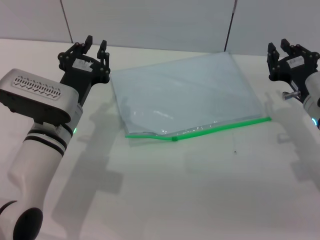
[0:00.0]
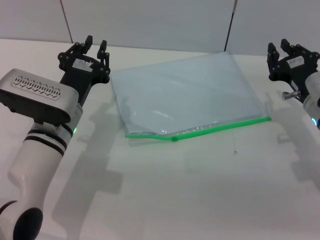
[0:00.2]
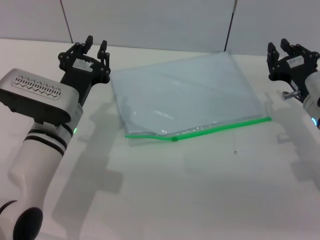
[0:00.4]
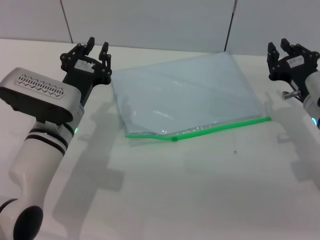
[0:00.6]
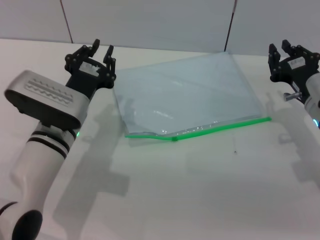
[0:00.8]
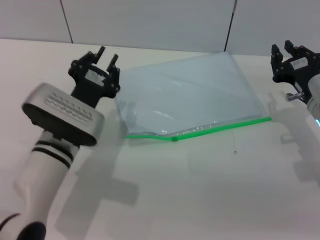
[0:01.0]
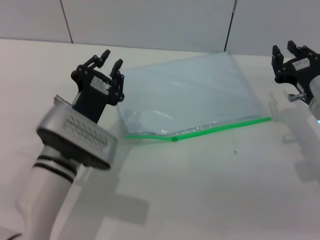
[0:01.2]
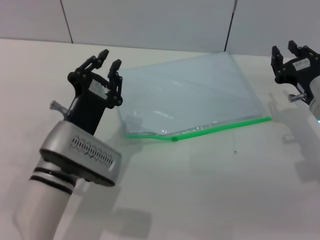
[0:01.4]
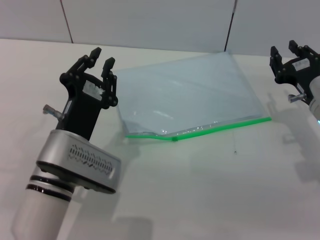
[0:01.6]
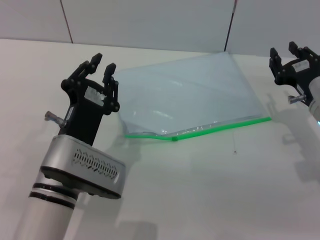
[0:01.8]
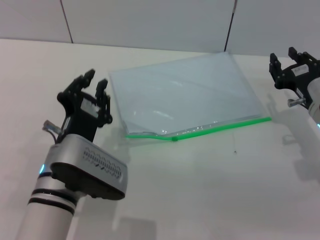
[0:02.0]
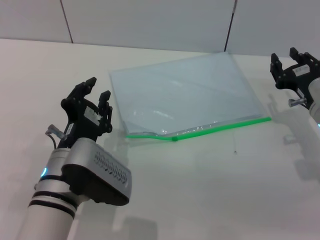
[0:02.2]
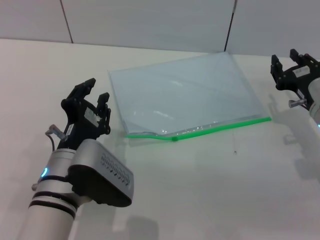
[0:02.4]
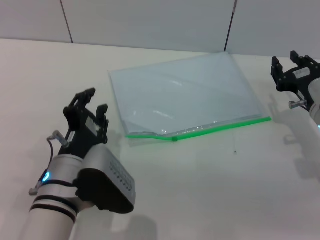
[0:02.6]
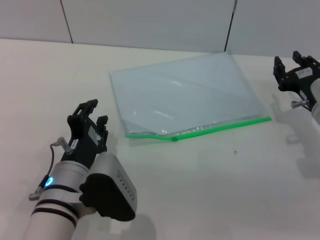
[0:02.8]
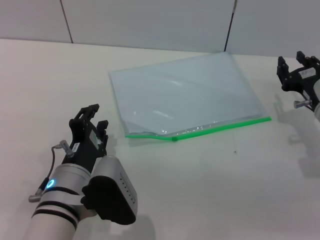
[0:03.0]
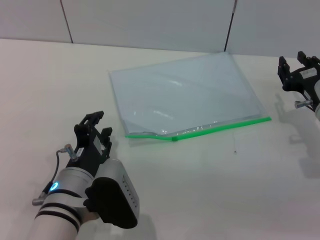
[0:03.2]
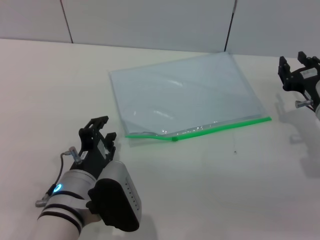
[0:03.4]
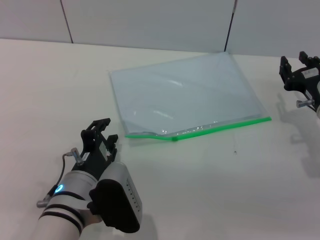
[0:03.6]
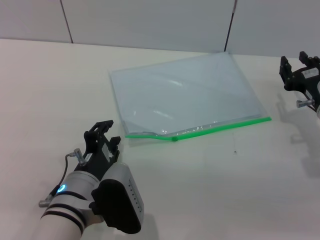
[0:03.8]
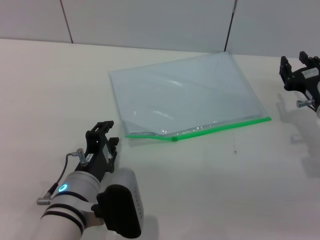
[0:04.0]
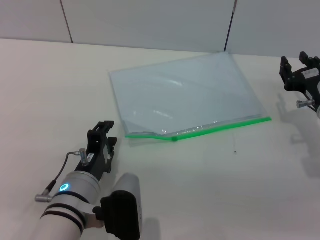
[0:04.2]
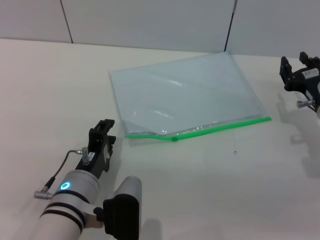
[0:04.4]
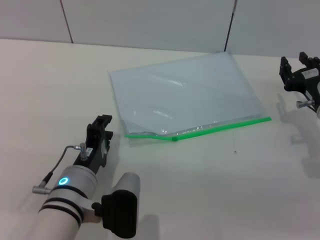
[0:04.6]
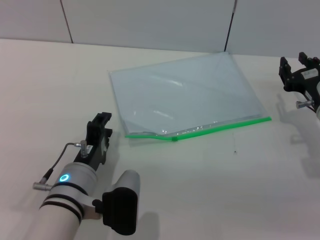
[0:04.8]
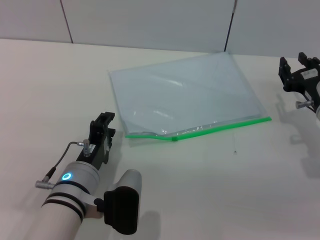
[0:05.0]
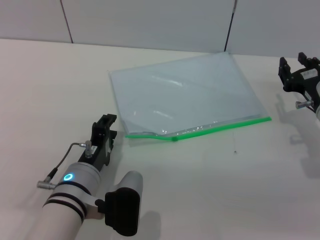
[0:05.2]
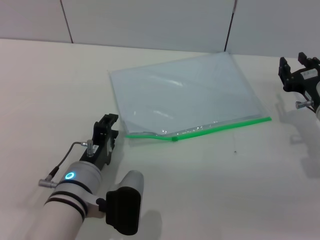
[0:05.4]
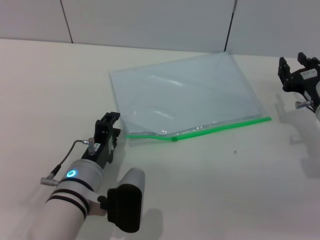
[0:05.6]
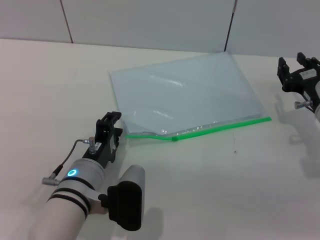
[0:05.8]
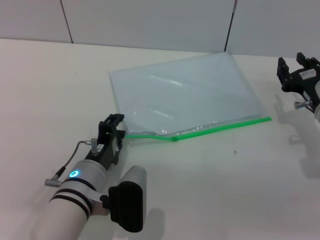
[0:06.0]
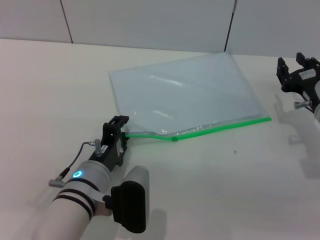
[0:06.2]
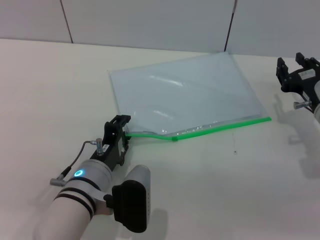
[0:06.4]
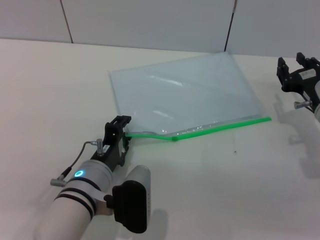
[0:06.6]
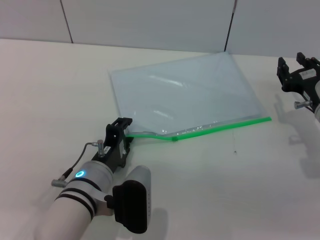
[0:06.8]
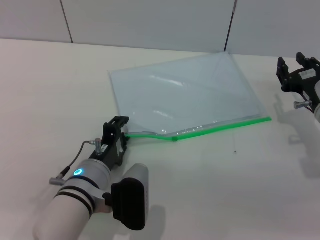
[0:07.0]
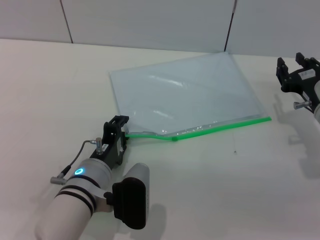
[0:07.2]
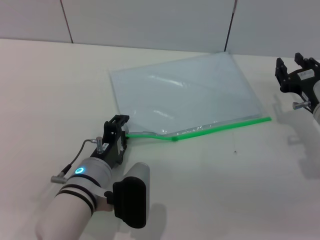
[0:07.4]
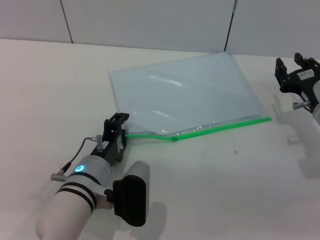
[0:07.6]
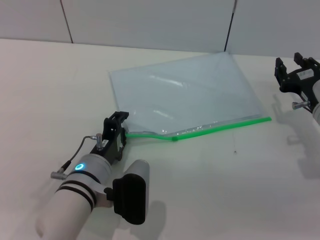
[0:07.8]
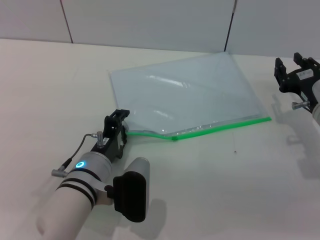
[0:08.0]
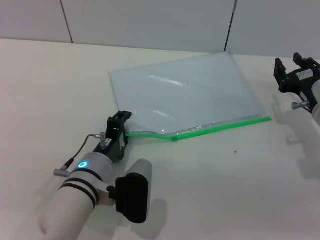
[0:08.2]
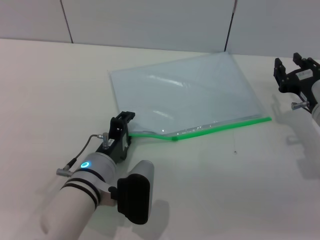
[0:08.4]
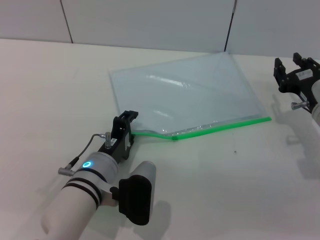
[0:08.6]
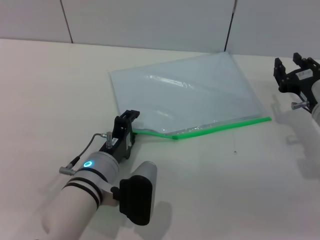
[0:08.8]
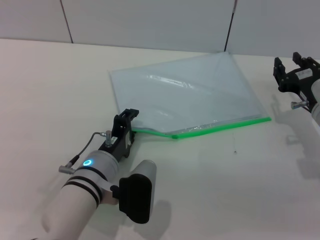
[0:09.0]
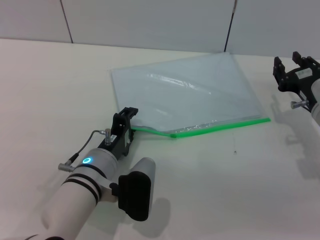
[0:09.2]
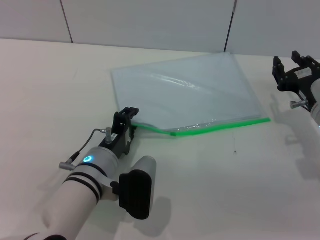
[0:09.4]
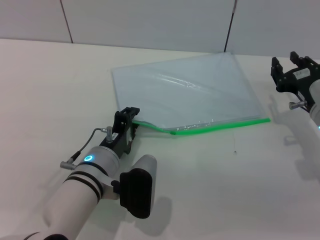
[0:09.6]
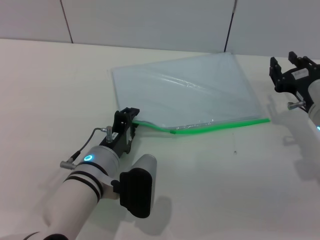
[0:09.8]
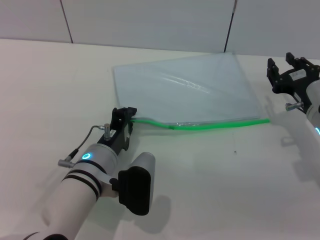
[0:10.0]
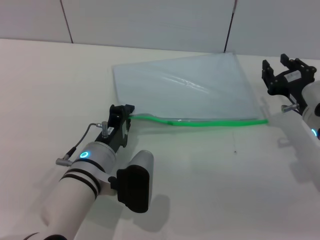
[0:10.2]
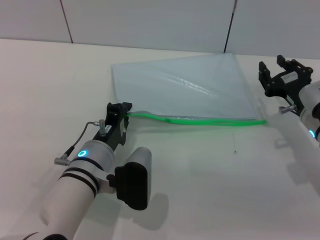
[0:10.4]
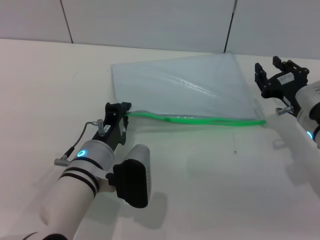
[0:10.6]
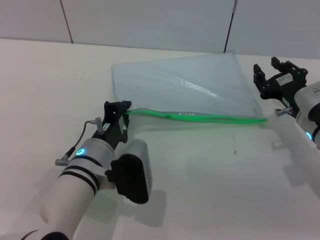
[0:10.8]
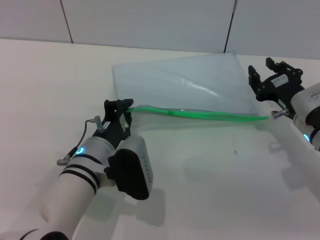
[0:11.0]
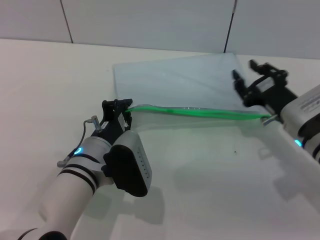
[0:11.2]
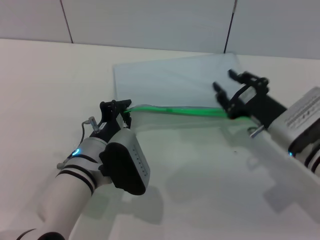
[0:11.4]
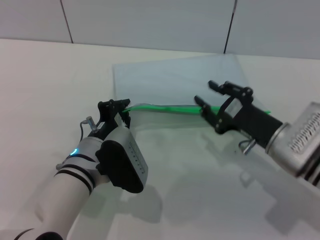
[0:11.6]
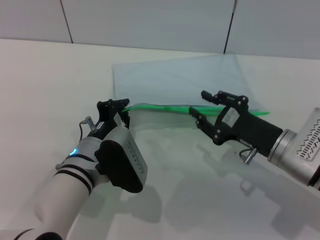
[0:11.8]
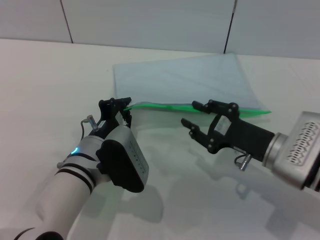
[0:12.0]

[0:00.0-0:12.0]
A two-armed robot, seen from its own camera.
0:00.0 to 0:01.6: The left gripper shifts some 5 cm backward.
0:03.0 to 0:04.4: The grippers stay close to where they were, moving slightly.
0:04.4 to 0:06.0: The grippers make only small movements.
0:06.0 to 0:07.6: Both grippers stay about where they are.
0:07.6 to 0:09.0: Both grippers stay put.
0:09.0 to 0:10.4: The left gripper closes.
0:10.4 to 0:12.0: The right gripper travels backward by approximately 5 cm.

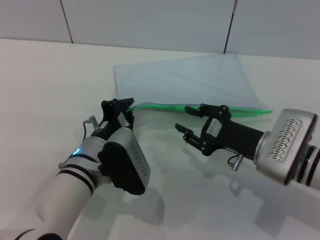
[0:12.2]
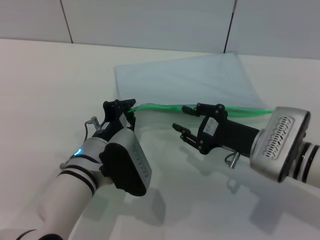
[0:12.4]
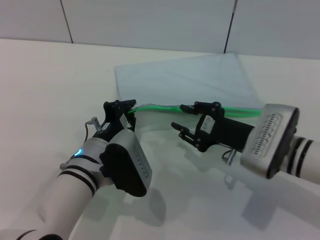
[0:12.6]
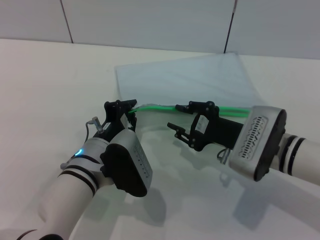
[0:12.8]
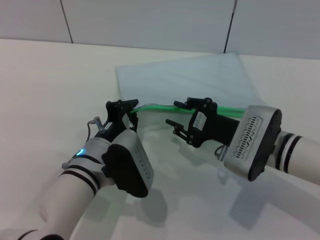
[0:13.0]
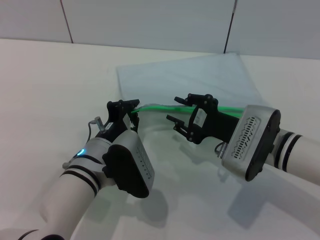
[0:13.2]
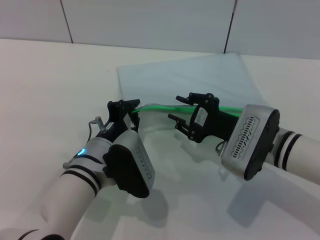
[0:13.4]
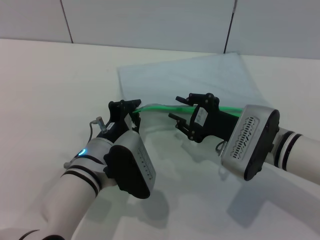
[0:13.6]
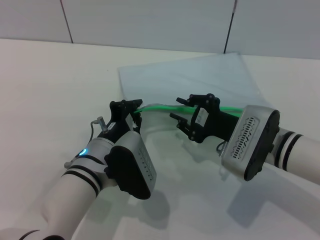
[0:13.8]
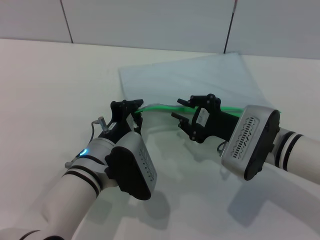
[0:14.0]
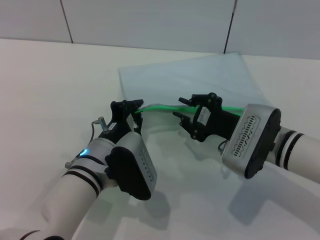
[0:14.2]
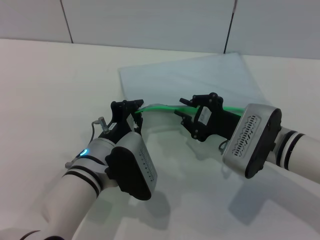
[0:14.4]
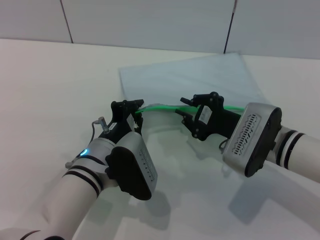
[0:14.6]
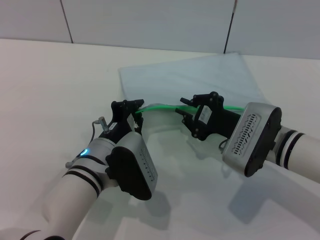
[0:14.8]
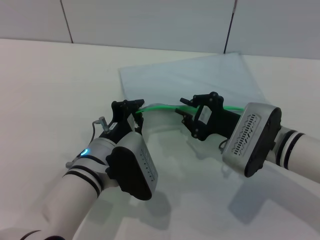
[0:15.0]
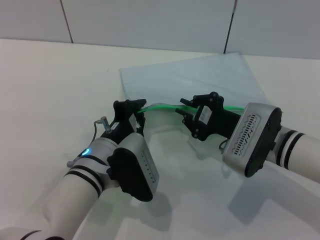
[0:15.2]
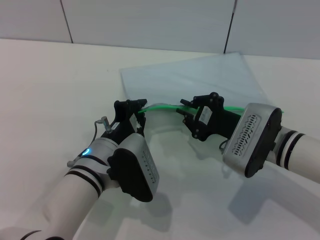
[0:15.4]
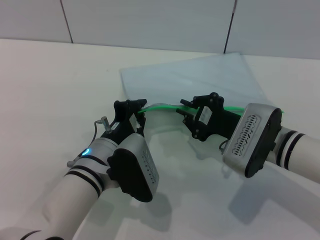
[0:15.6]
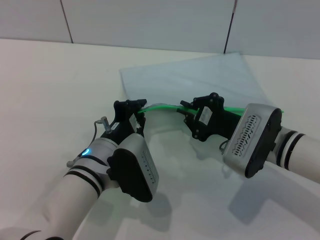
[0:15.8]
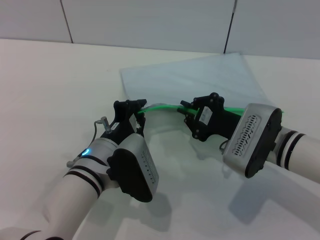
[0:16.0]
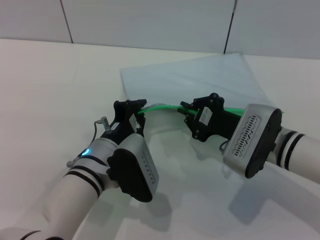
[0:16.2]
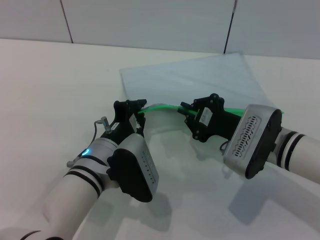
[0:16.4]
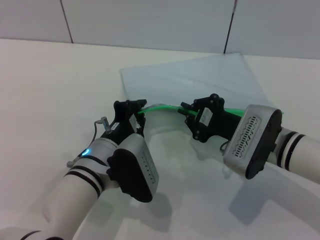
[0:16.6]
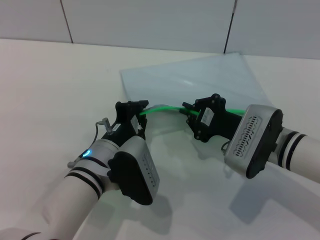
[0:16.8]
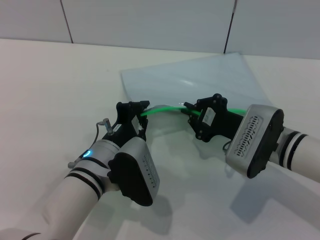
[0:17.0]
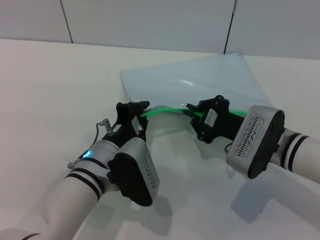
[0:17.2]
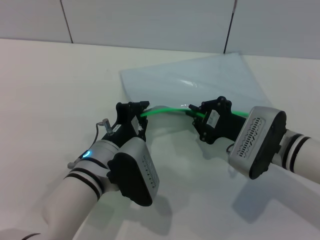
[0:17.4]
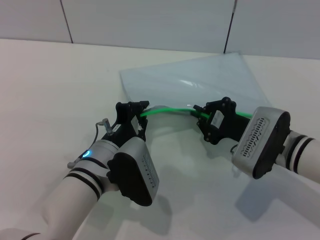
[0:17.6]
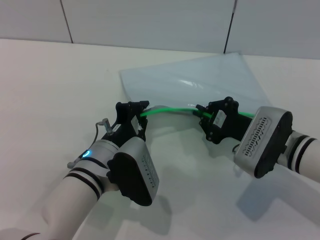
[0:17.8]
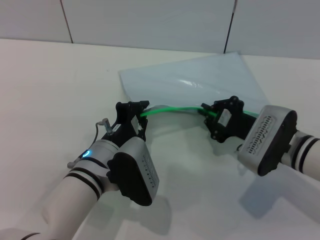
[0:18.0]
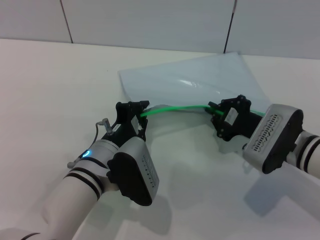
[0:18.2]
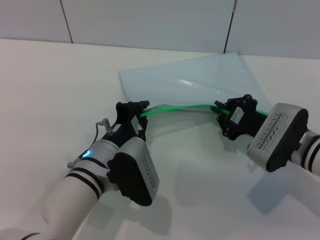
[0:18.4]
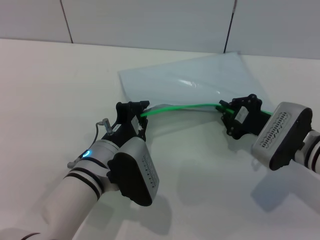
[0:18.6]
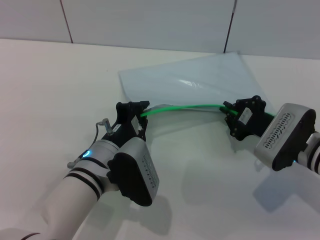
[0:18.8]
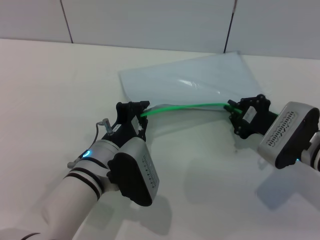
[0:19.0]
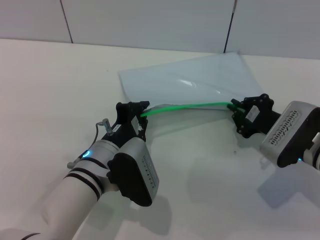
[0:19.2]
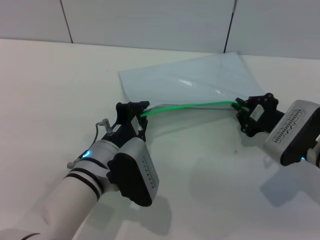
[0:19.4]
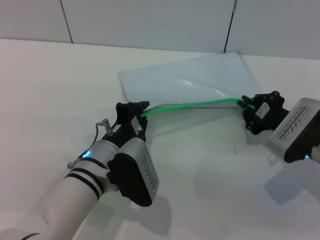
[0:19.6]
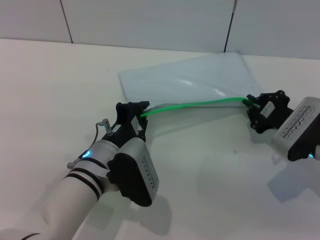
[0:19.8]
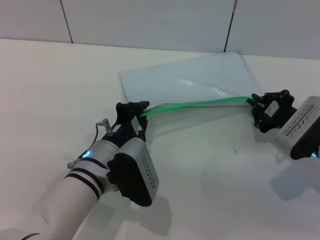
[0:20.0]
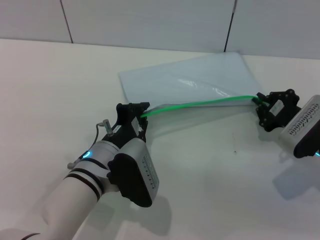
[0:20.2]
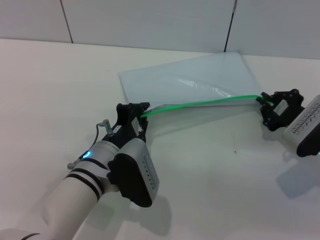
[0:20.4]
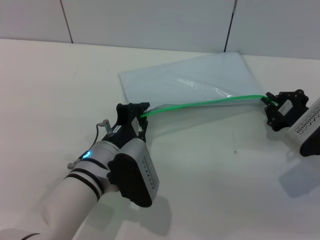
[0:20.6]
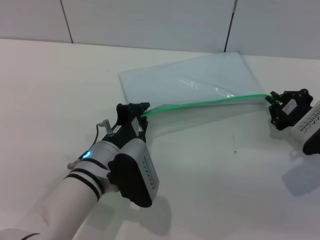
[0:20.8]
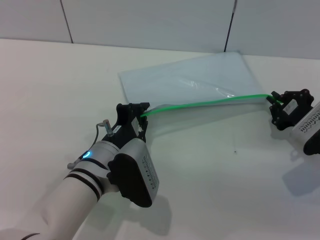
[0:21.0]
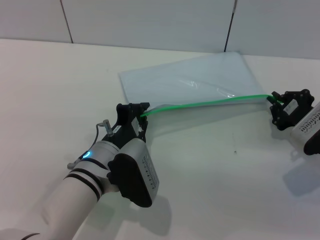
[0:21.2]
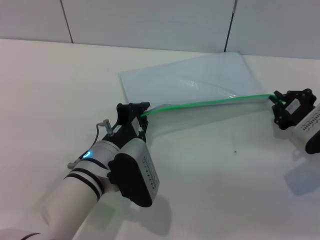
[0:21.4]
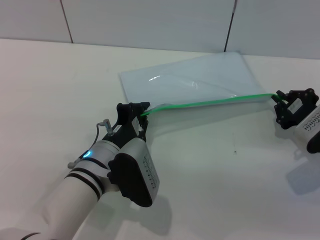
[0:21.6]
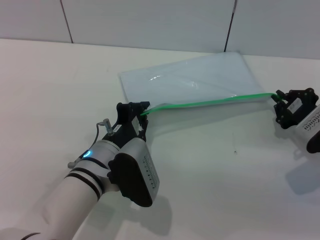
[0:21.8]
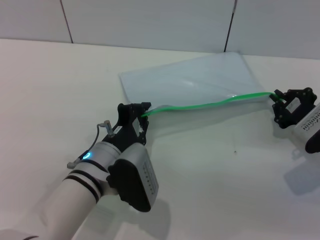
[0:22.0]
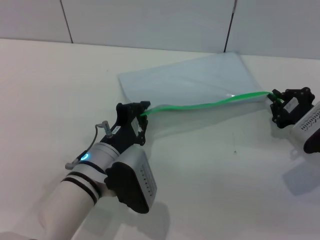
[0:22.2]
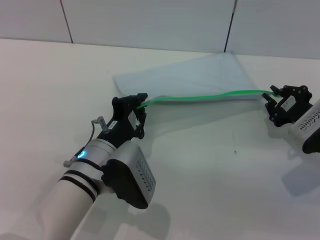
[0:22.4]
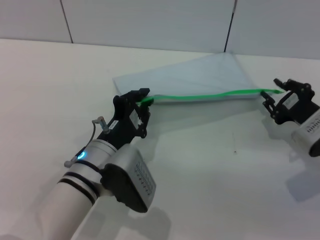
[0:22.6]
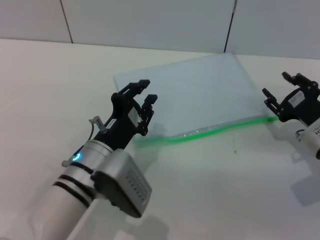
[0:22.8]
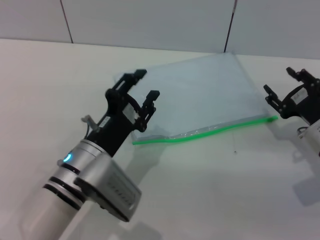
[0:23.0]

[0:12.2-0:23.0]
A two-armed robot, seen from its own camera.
Step, 0:12.4 to 0:22.2: Pulling up the zipper on the transparent plastic bag with the right gripper to close it.
0:12.2 to 0:13.8: The grippers move only a little.
0:13.8 to 0:16.8: Both grippers stay about where they are.
0:16.8 to 0:18.4: The grippers stay close to where they were, moving slightly.
0:18.4 to 0:20.0: The grippers move only a little.
0:20.0 to 0:21.4: The grippers stay close to where they were, moving slightly.
0:21.4 to 0:23.0: The left gripper opens up, while the right gripper opens.
